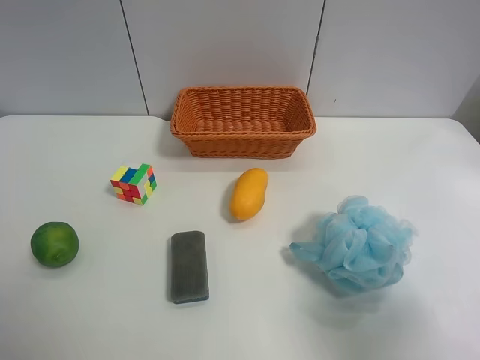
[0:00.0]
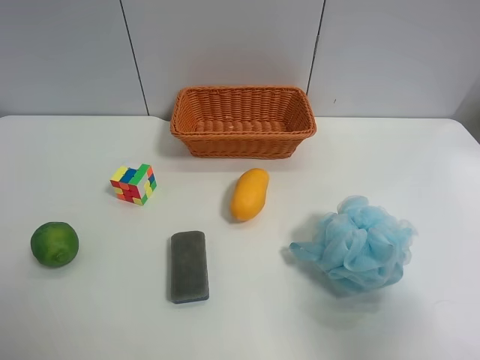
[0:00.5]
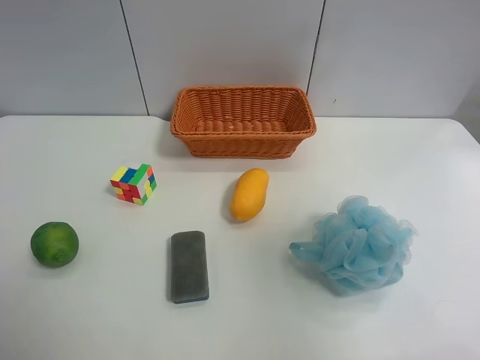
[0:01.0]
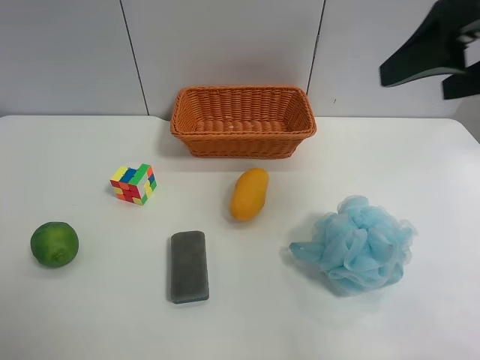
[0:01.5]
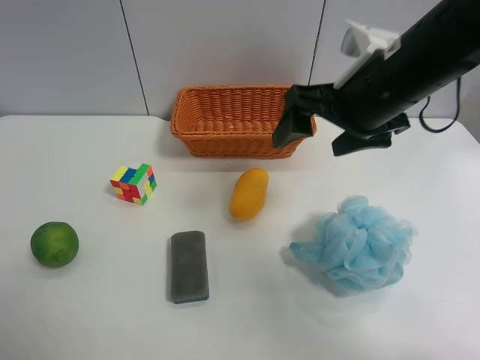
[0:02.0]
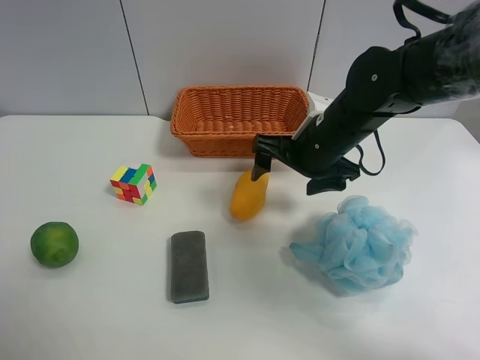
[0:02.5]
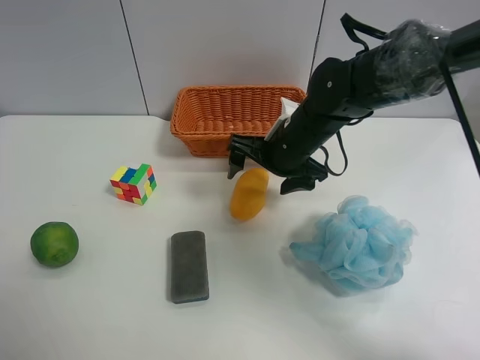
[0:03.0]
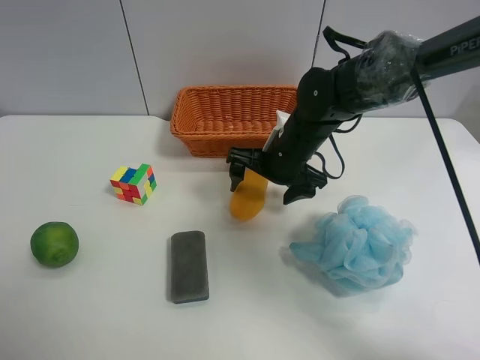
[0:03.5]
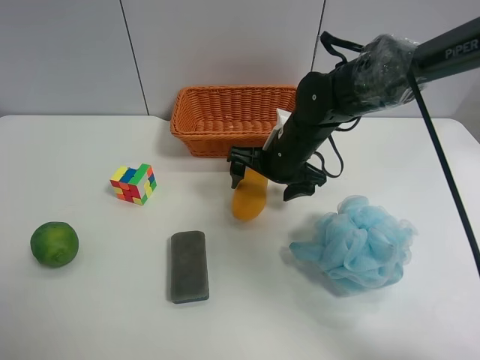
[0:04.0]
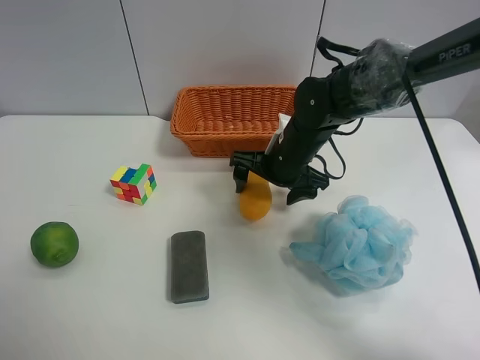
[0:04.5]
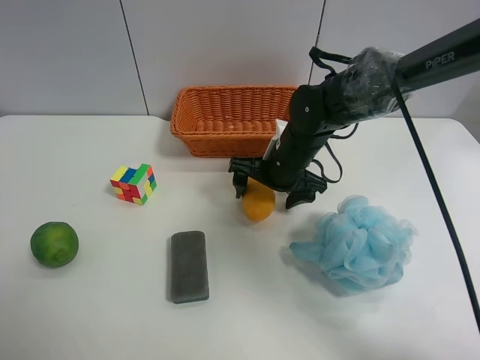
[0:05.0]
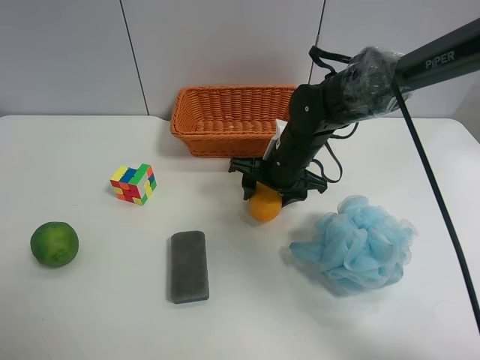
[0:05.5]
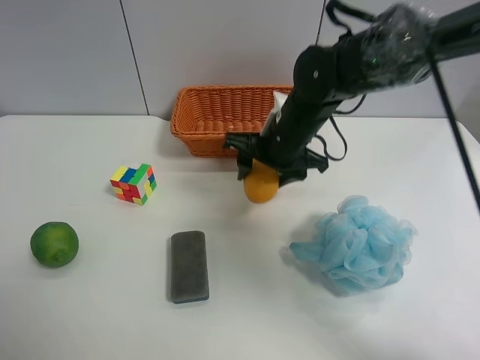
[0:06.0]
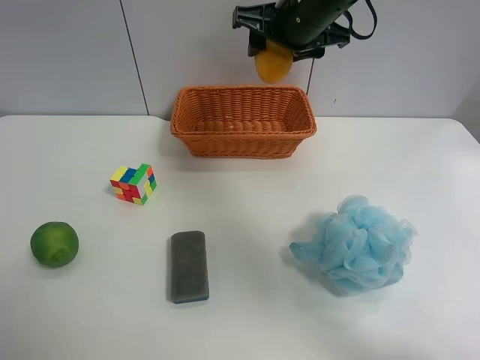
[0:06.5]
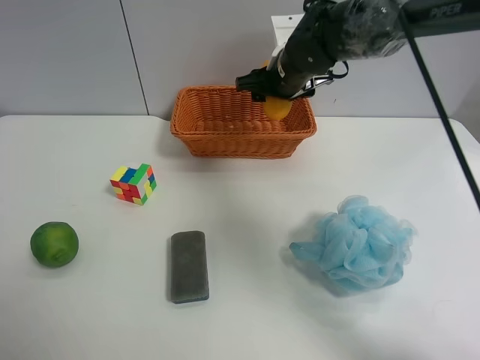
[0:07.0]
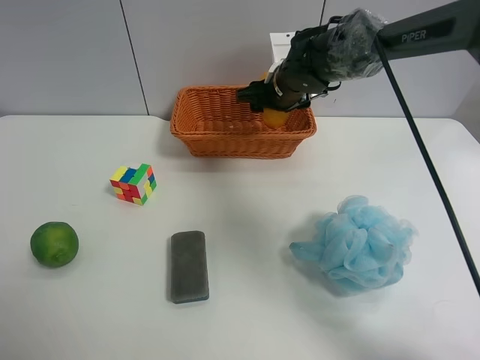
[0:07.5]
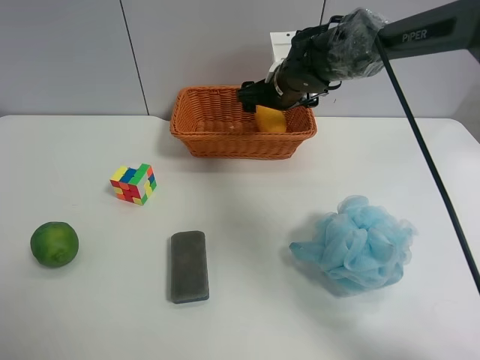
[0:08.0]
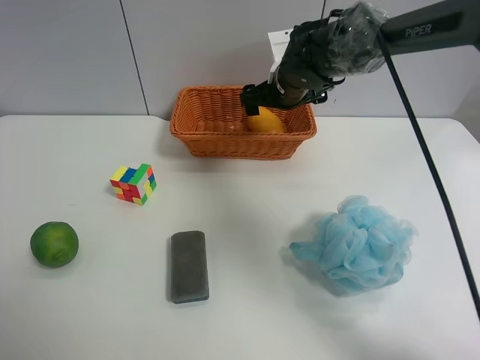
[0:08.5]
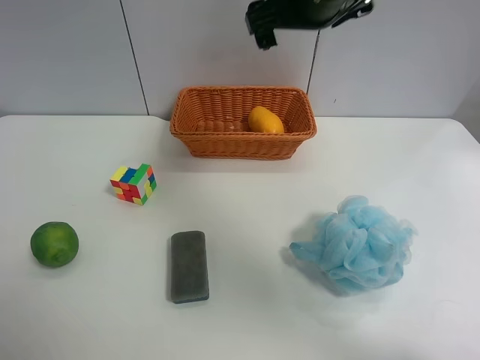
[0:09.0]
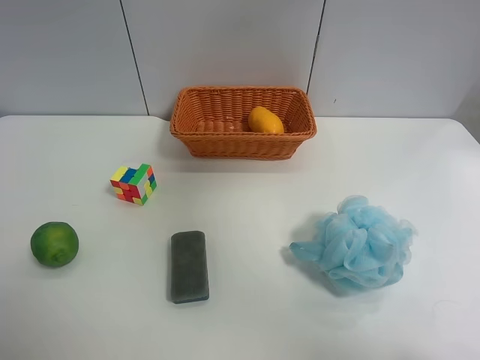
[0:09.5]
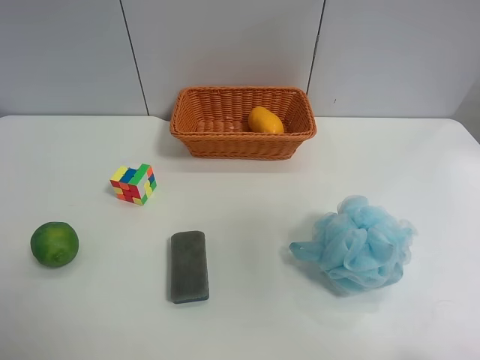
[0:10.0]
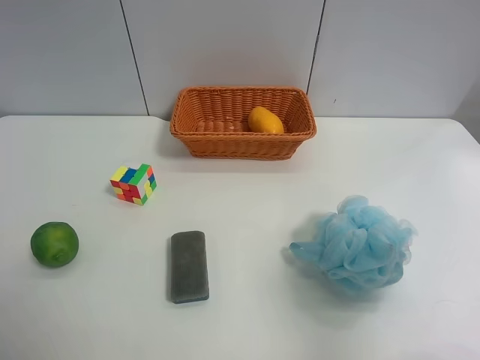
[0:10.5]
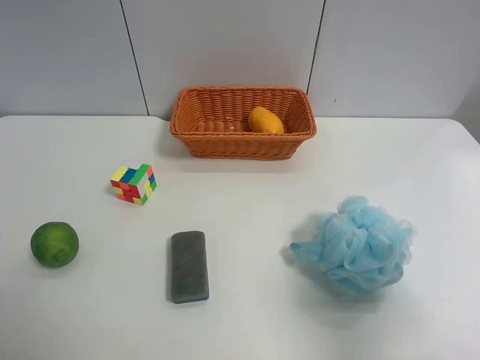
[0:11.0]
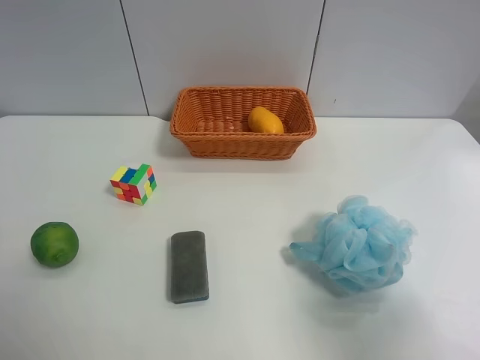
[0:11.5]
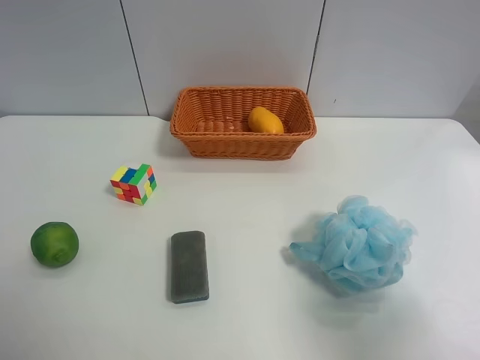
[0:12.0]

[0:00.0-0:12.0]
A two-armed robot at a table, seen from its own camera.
Task of the whole recording: Randomly grab green lemon or mangoes from the table and put them in a basket.
Step, 0:00.0 to 0:05.5: Grasp the mango with the right gripper.
Step, 0:06.0 to 0:08.5: Place the mango into the basket with the right gripper.
0:00.0 to 0:02.0: The right gripper is displaced forward and to the left by about 30 cm.
0:02.0 to 0:04.0: The right gripper is displaced downward, forward and to the left by roughly 15 cm.
0:04.0 to 0:06.0: The right gripper heads upward, covering some 5 cm, and closes.
0:06.0 to 0:08.0: The right gripper travels forward by roughly 10 cm, moves roughly 10 cm upward and comes back, and opens its fingers.
0:08.0 to 0:10.0: The right gripper moves backward, upward and to the right, about 40 cm.
0:10.0 to 0:12.0: The right gripper goes about 15 cm downward and backward.
